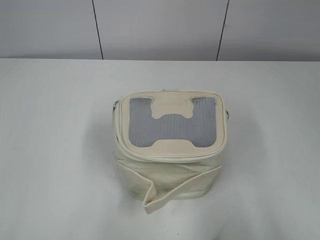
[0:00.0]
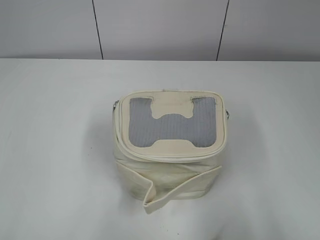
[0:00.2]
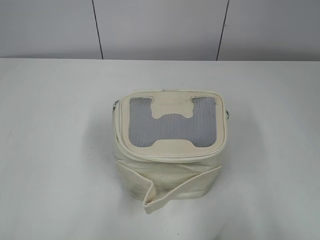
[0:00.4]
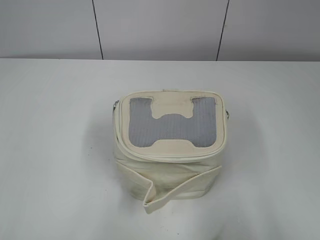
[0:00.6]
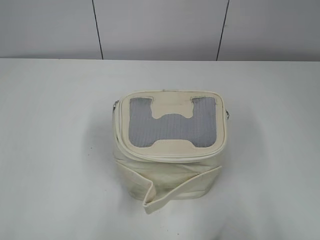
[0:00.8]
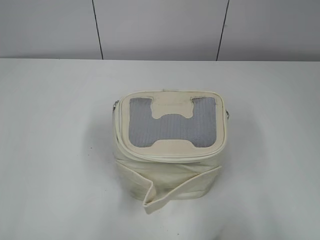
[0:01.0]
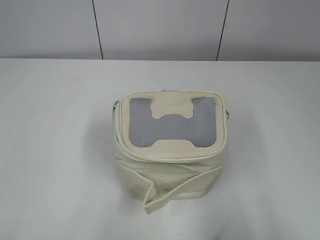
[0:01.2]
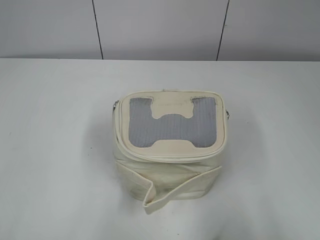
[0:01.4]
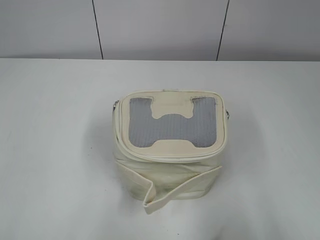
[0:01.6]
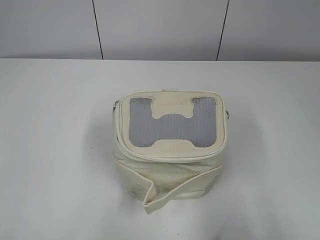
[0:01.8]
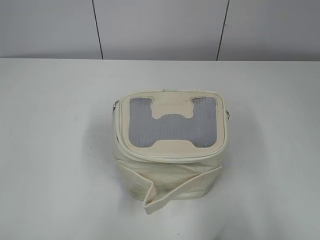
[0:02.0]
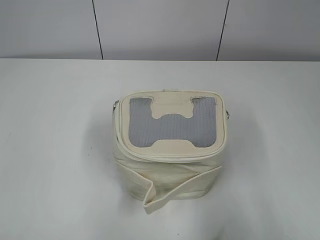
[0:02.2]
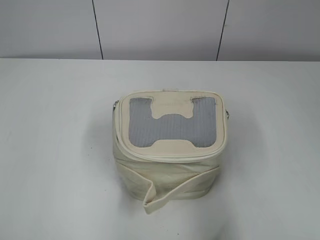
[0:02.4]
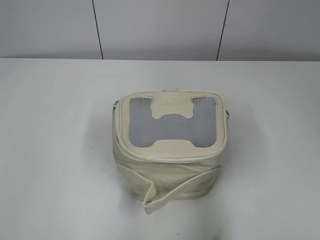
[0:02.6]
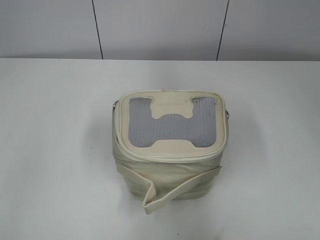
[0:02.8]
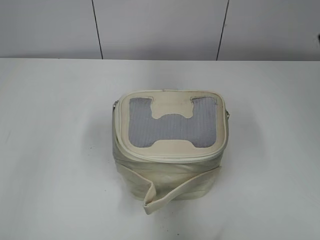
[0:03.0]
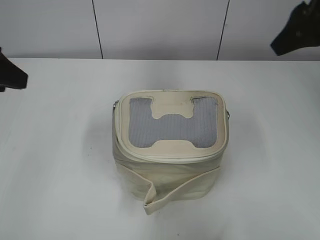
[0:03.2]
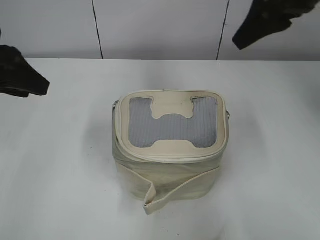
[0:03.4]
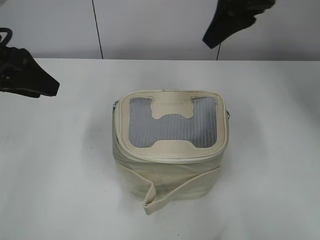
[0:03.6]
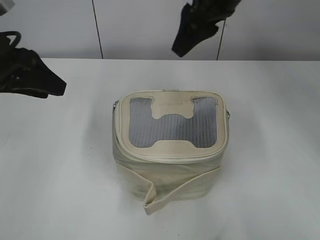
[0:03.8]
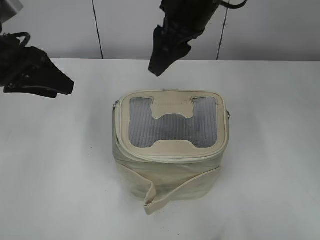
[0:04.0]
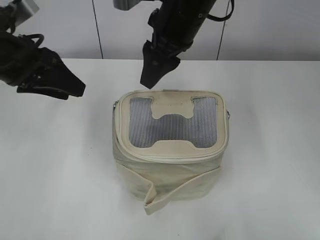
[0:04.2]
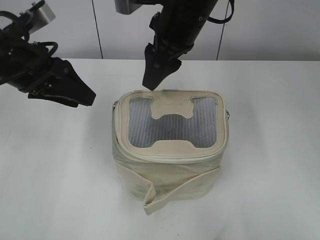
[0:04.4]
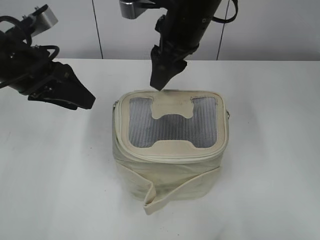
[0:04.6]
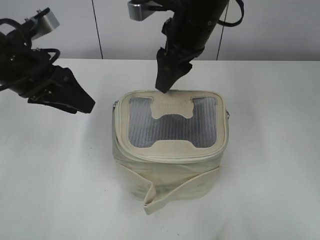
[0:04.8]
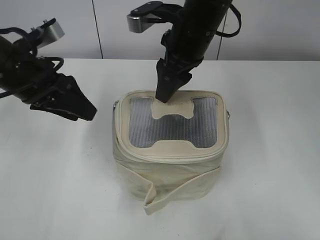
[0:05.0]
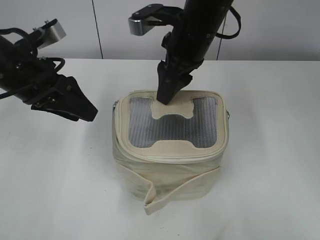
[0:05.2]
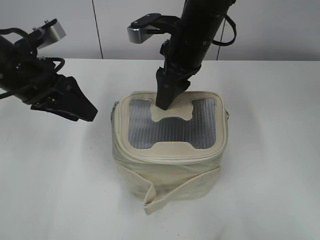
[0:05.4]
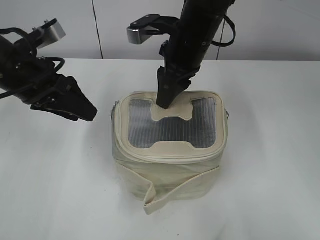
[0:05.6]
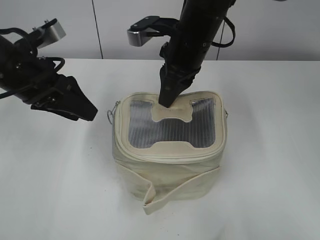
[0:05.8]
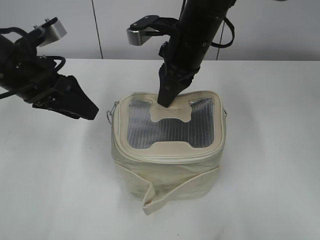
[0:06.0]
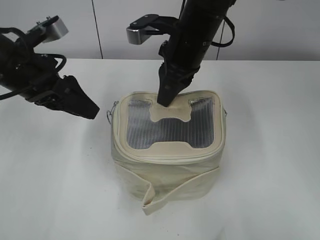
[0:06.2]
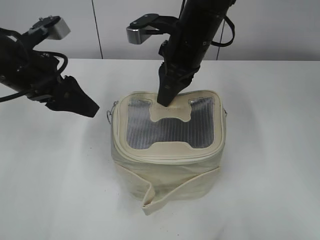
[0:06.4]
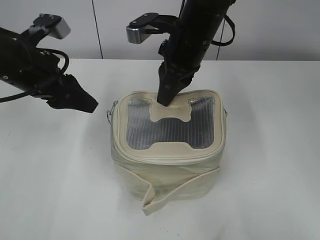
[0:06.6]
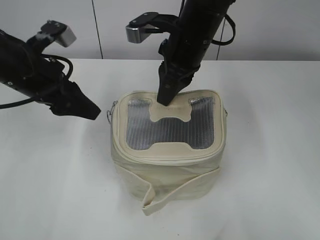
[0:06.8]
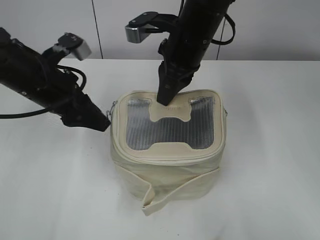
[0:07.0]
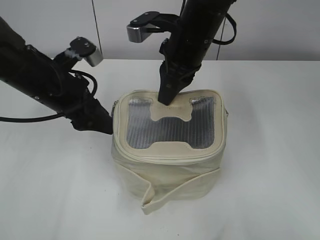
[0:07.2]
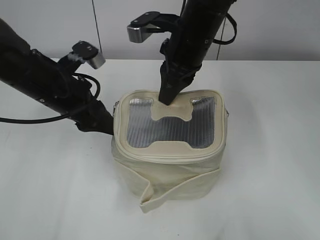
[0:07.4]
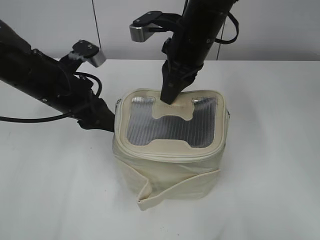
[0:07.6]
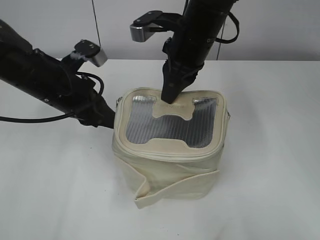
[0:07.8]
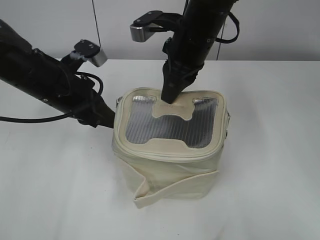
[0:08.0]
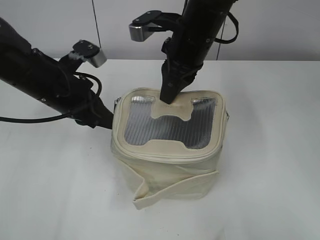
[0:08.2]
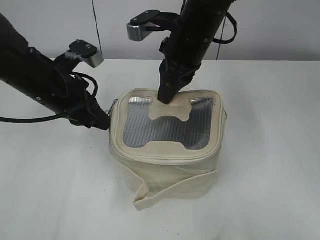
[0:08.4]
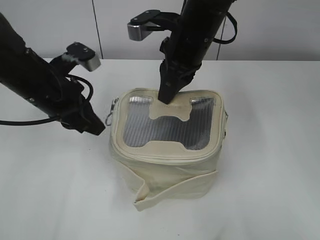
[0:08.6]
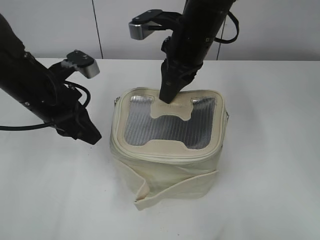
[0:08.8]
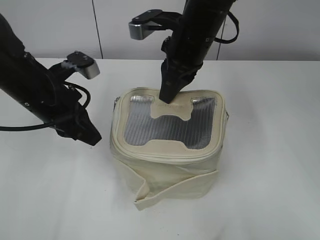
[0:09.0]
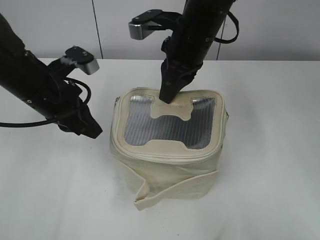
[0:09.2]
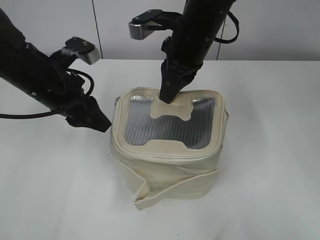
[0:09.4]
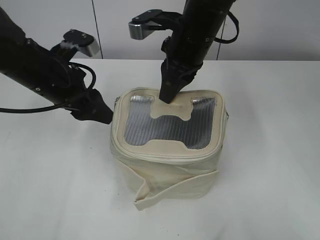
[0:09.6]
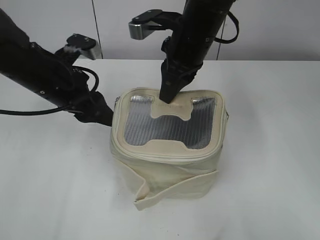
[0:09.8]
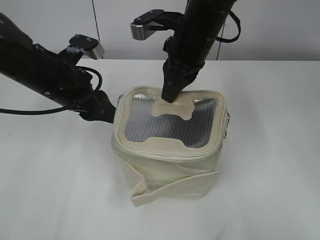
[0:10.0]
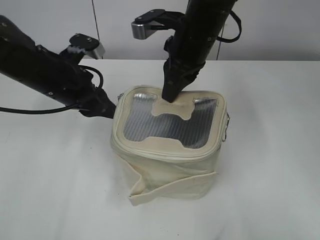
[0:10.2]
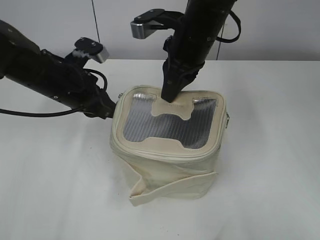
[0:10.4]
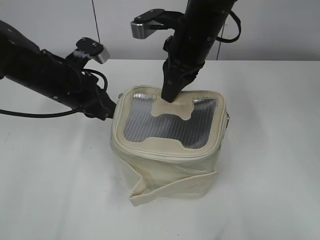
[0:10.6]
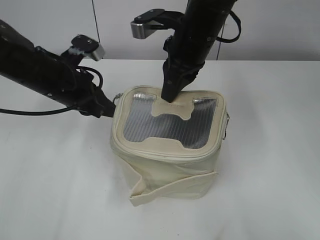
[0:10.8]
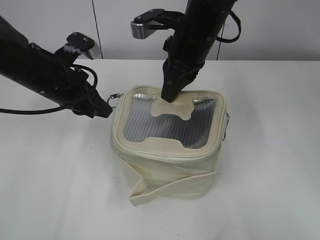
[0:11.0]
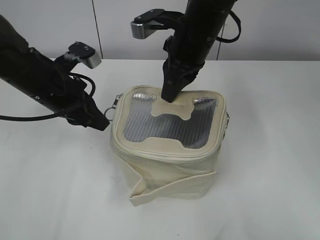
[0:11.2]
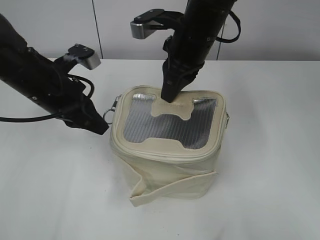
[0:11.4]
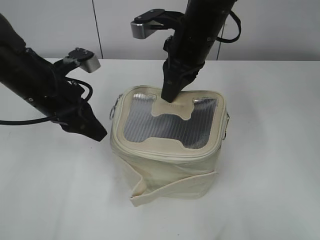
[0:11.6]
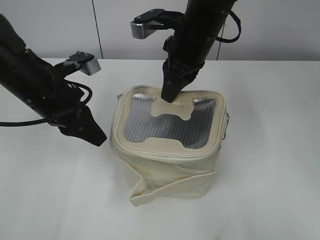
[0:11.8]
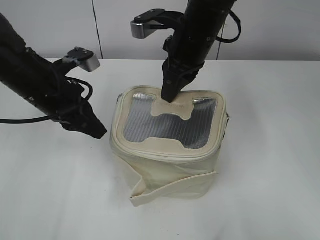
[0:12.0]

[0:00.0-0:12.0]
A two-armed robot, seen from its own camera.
0:01.6 to 0:03.0: The grippers both shift forward by approximately 20 cm.
0:03.0 to 0:04.4: The right gripper moves to the left and forward, some 25 cm. Meanwhile the left gripper moves forward, to the right and downward, some 15 cm.
0:04.4 to 0:06.0: The right gripper closes.
0:06.0 to 0:07.6: The left gripper shifts by some 5 cm.
0:07.6 to 0:09.0: The left gripper closes.
0:09.0 to 0:10.4: The left gripper opens, then closes again.
0:10.4 to 0:12.0: The grippers make only small movements.

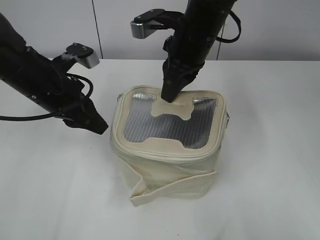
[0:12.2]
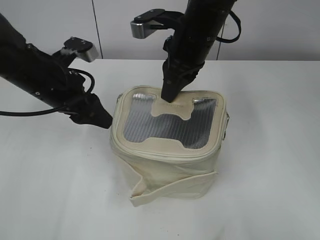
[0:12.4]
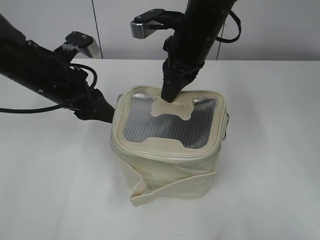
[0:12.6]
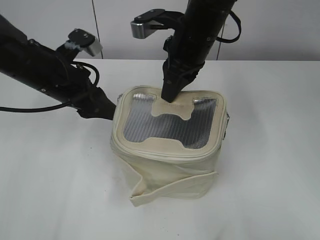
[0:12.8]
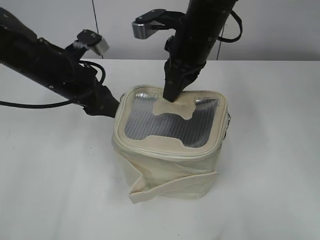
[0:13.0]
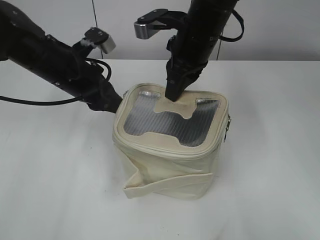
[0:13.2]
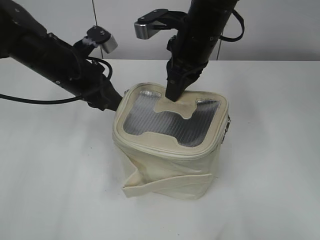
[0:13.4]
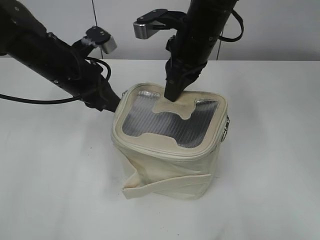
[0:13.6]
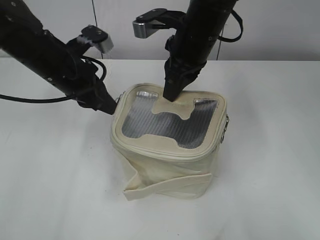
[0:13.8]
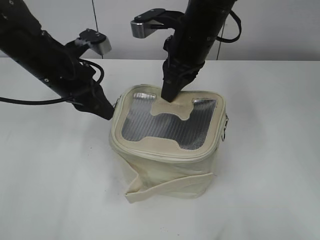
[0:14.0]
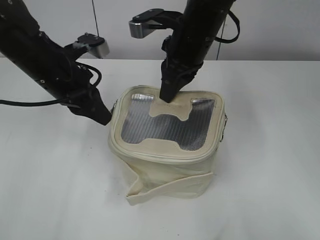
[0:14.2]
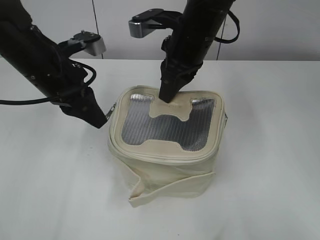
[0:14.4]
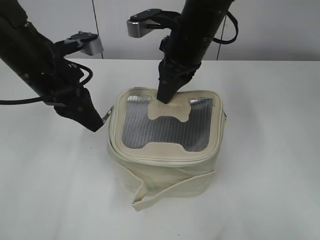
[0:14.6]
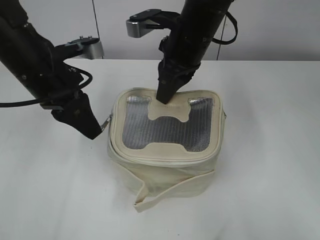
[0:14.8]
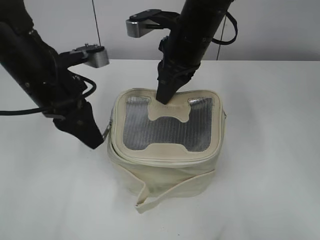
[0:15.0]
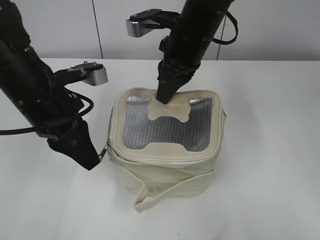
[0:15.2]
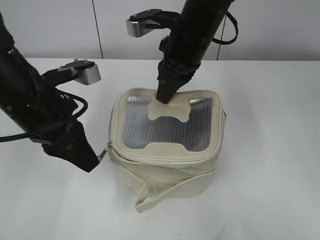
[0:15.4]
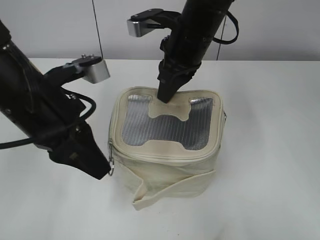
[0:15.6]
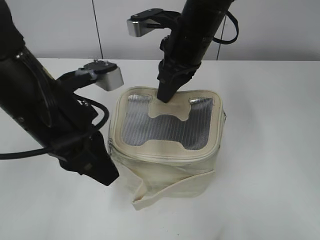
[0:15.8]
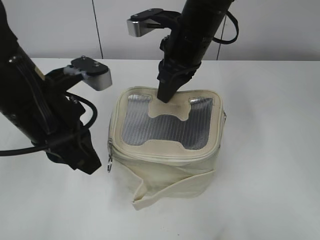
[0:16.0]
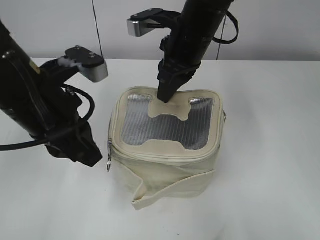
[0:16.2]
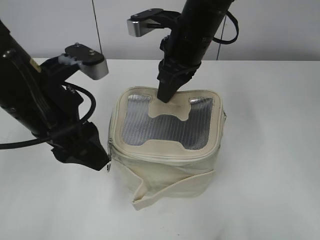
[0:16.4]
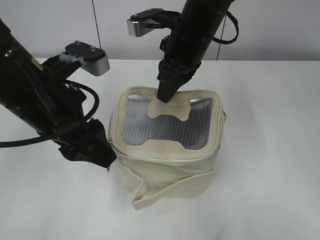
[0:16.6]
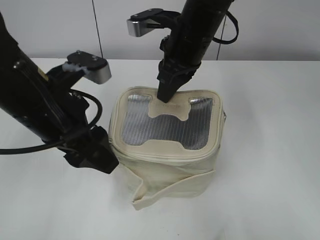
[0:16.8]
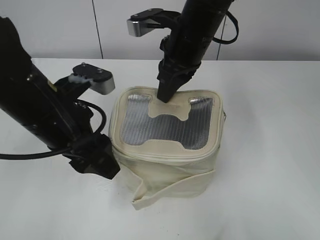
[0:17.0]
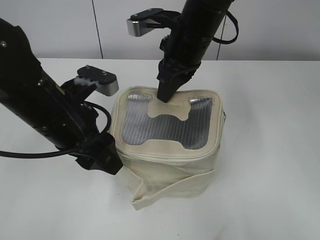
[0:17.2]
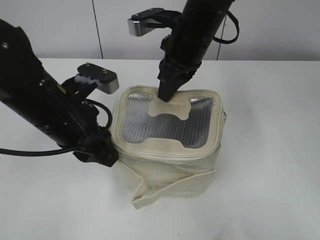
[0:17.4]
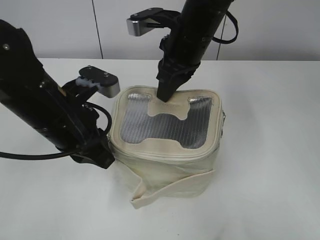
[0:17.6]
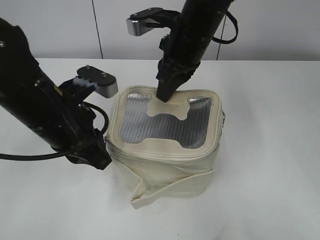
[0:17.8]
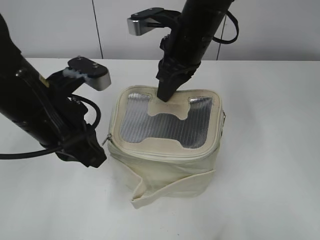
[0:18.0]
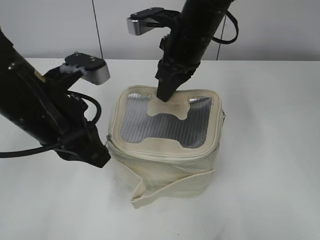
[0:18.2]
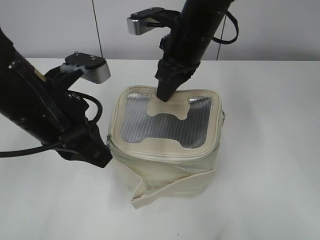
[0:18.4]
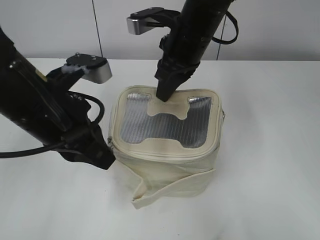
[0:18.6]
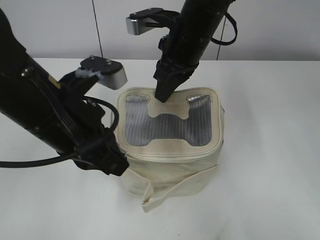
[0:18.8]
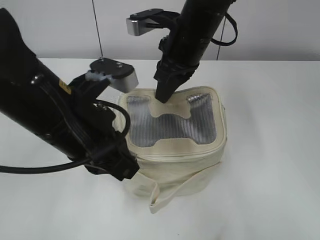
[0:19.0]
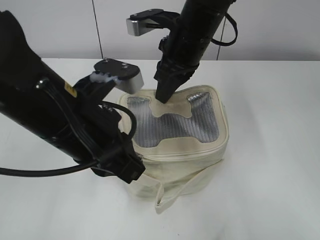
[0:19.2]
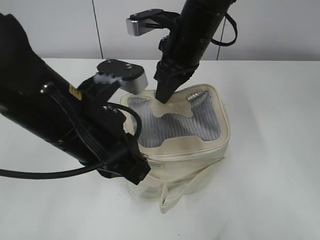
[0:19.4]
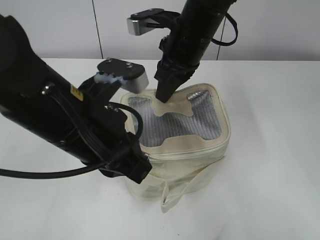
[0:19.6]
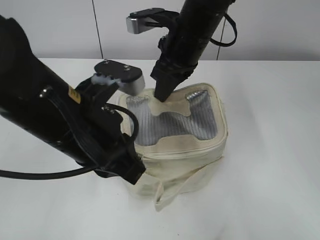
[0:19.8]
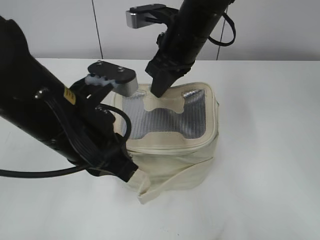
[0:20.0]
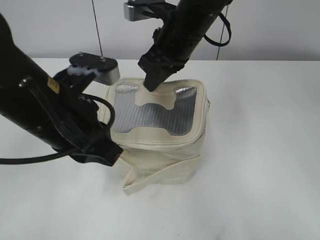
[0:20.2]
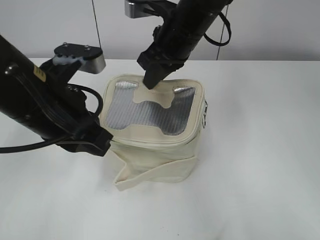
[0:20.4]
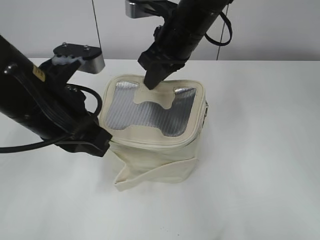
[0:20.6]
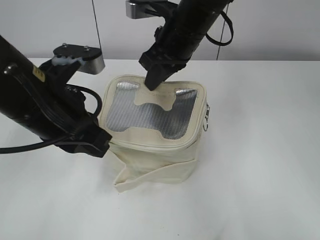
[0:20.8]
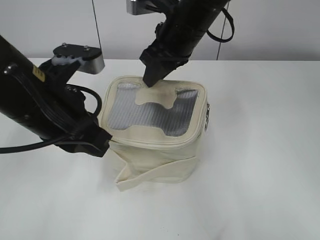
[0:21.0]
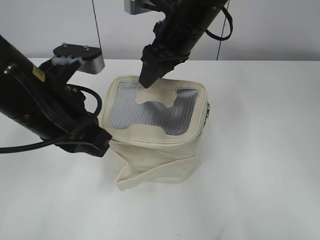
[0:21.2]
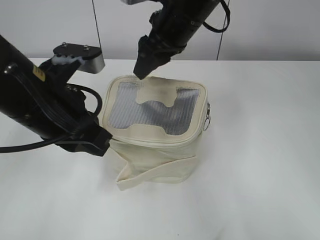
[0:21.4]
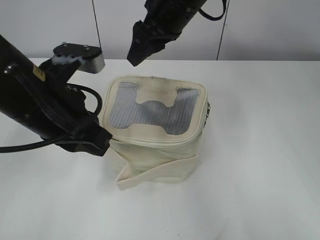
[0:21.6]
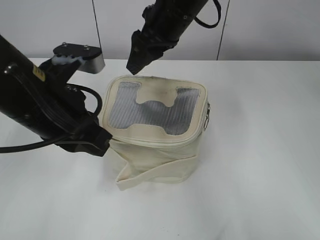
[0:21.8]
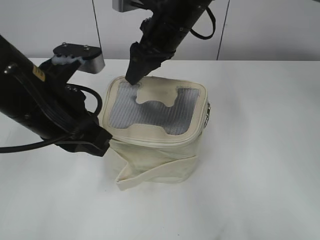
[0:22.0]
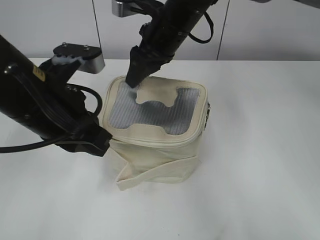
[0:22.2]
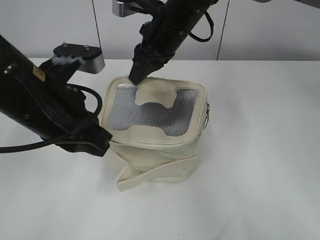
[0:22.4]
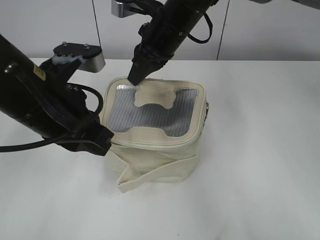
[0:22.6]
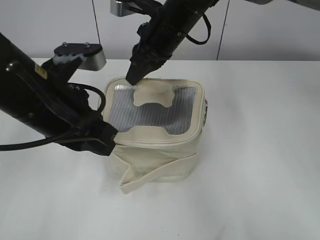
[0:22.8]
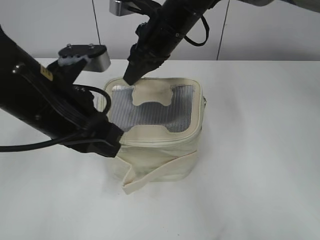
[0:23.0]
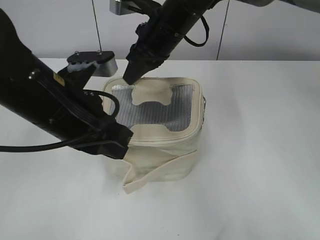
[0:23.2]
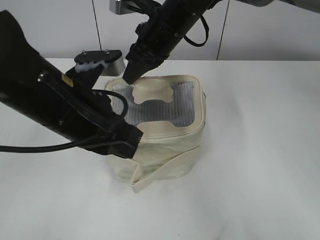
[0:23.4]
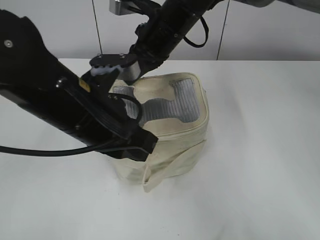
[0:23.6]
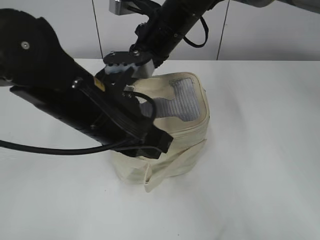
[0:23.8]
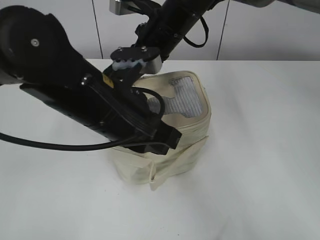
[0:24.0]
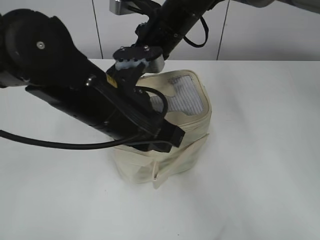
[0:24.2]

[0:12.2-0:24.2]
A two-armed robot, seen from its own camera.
0:12.2 to 0:13.8: The left gripper opens, then closes once more.
0:13.8 to 0:15.2: The left gripper goes about 10 cm backward.
0:15.2 to 0:16.6: The left gripper ends up roughly 5 cm from where it was, and opens.
0:16.6 to 0:18.2: The left gripper closes its fingers.
0:18.2 to 0:19.8: The left gripper changes place by about 5 cm.
0:19.8 to 0:21.2: The left gripper changes place by approximately 5 cm; the right gripper opens its fingers.
0:21.2 to 0:22.6: The right gripper closes.
0:22.6 to 0:24.2: The left gripper shifts roughly 5 cm to the right.
